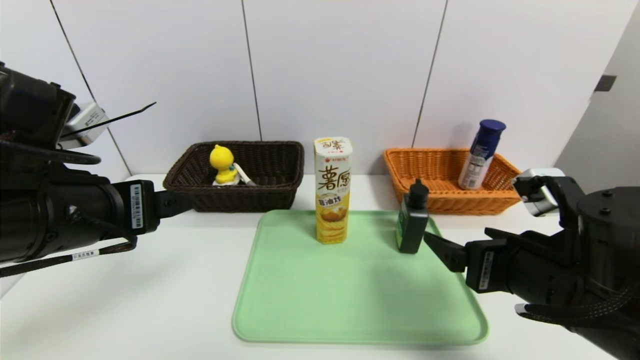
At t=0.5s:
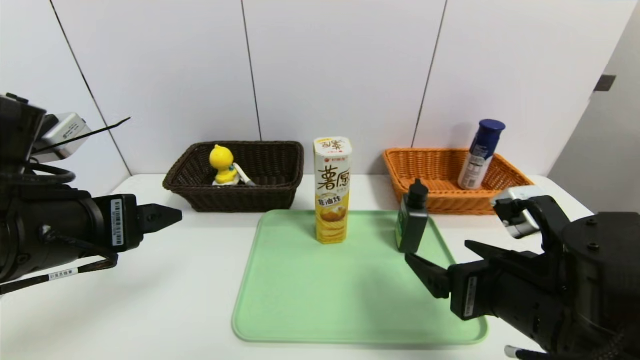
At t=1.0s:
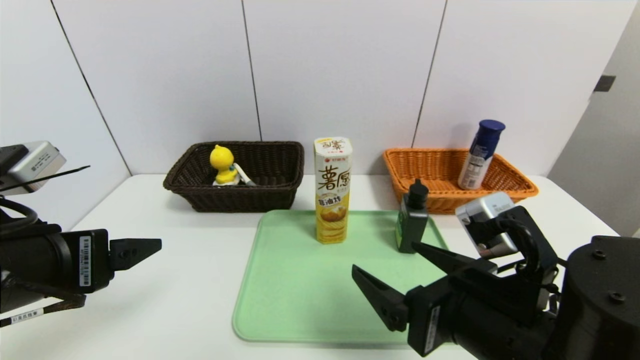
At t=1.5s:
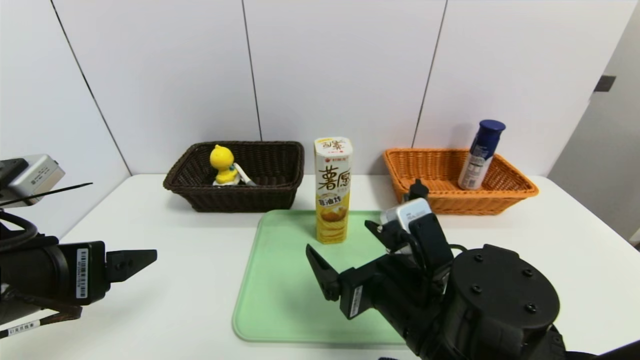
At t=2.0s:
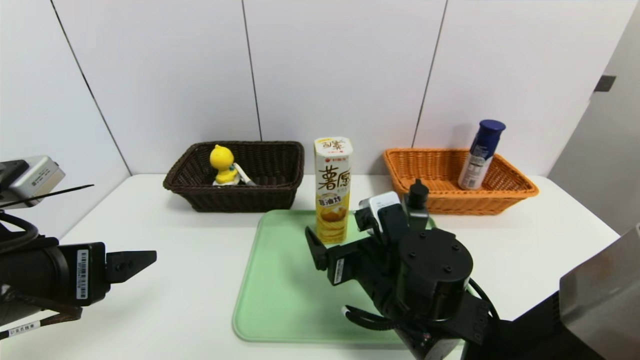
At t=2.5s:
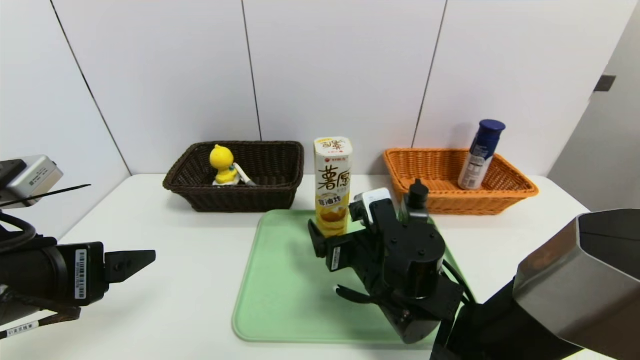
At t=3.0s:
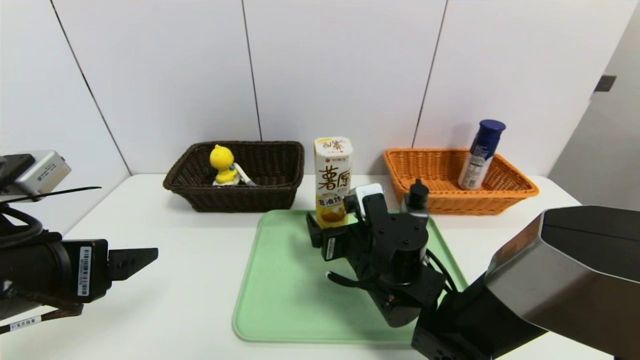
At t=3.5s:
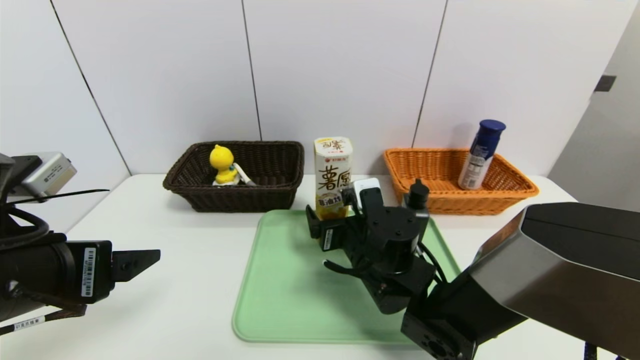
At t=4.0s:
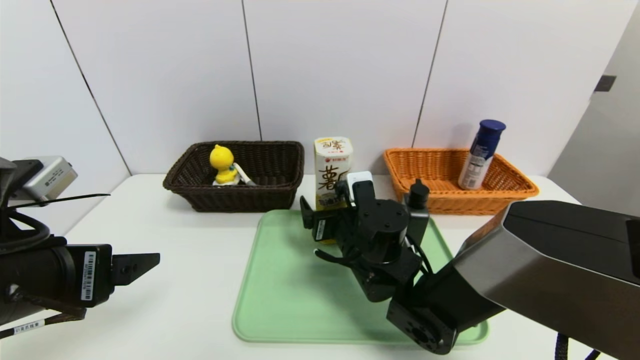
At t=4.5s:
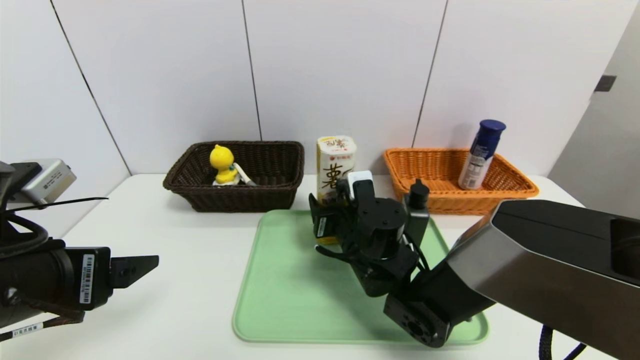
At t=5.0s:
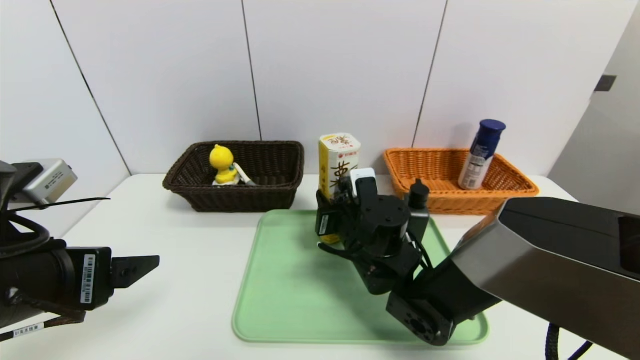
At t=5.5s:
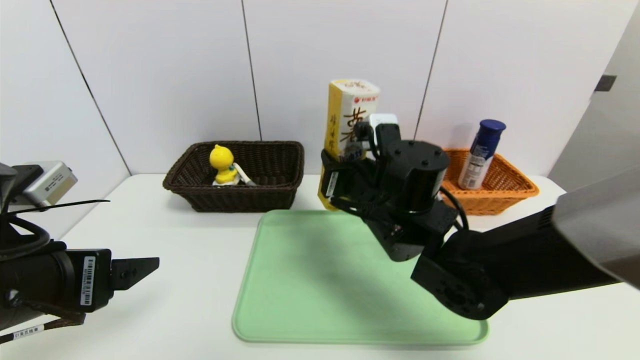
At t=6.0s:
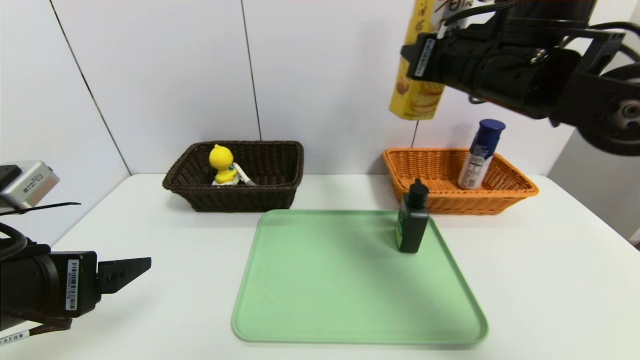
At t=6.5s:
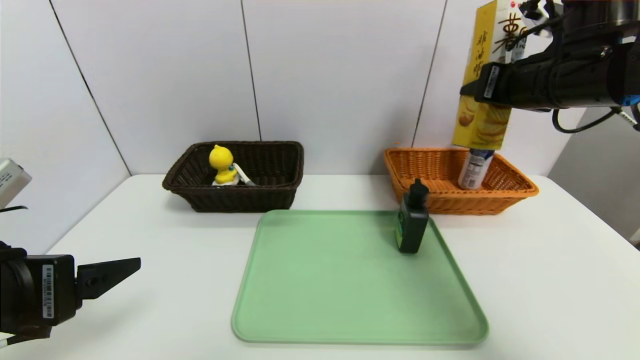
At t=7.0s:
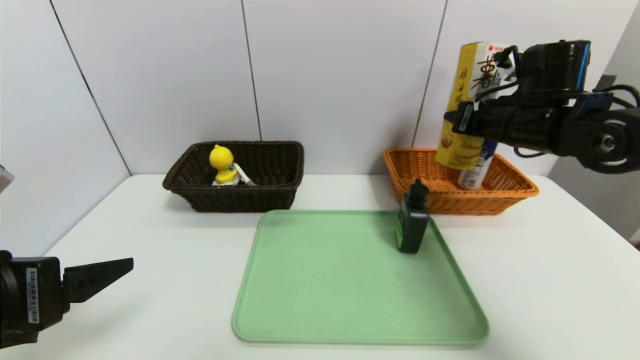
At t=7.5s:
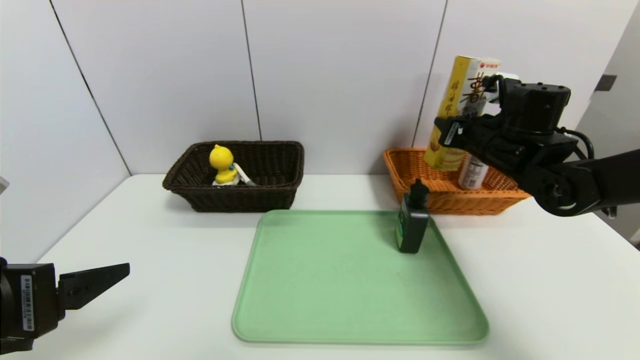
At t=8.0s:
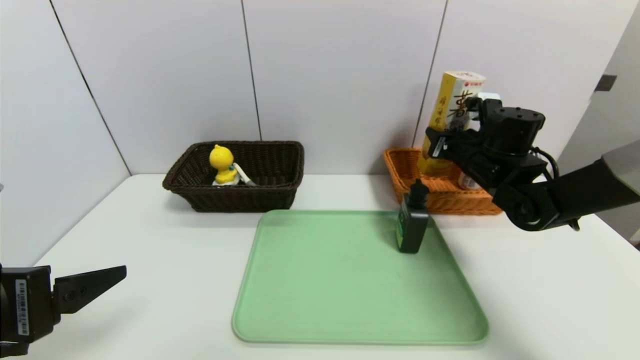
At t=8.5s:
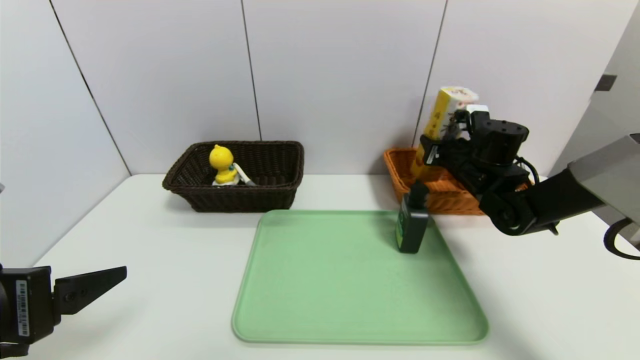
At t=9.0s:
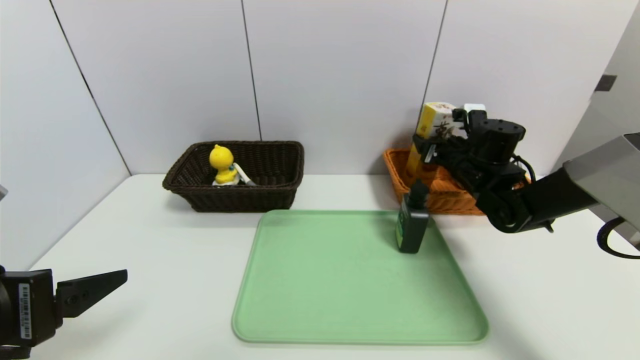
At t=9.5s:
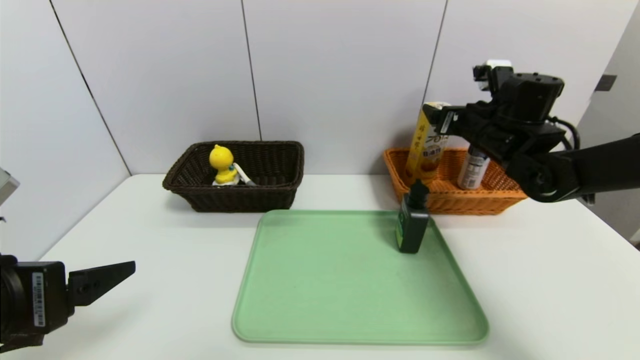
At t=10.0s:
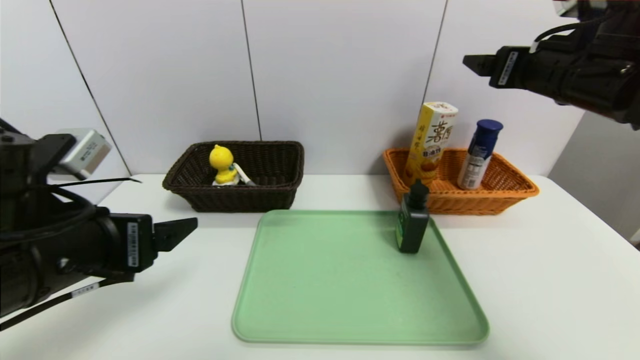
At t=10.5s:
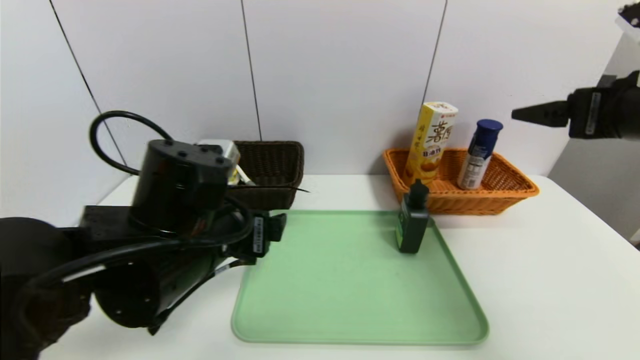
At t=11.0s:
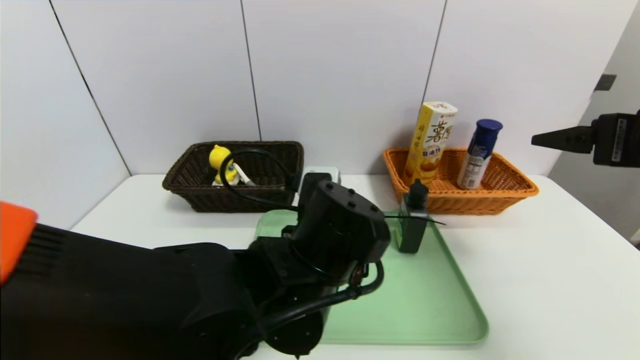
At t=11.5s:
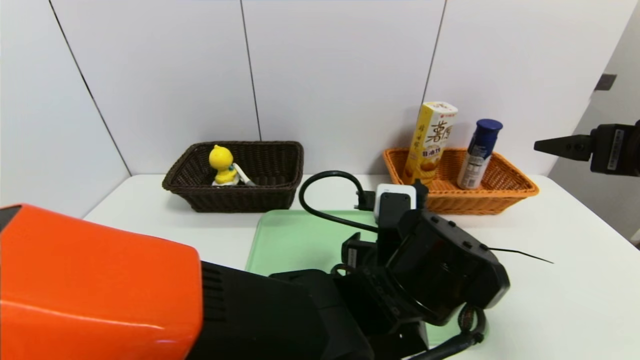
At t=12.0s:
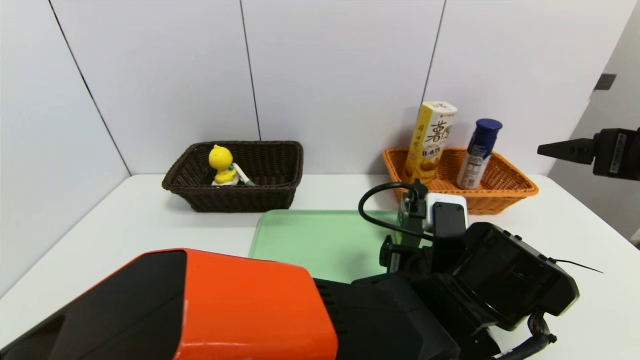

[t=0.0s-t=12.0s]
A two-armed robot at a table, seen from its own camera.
Task of the whole recording: place the food in the right basket with the right gripper, and place the non food items in the left basket with the left gripper.
Step, t=0.0s to t=9.5s: Grasp the potato chips and put it in the right basket.
t=0.0s to t=2.0s: The left gripper shifts by some 5 cm. Meanwhile the right gripper heads to the left, downward and forward, covering approximately 15 cm.
t=2.0s to t=4.0s: The right gripper goes approximately 10 cm forward.
t=4.0s to t=6.0s: The right gripper goes approximately 30 cm upward and to the right, and closes up.
t=6.0s to t=8.0s: The right gripper is displaced downward, forward and to the right by about 20 cm.
t=8.0s to t=10.0s: The right gripper goes about 20 cm upward and backward, and opens up, while the left gripper shifts roughly 5 cm forward.
t=10.0s to t=12.0s: The right gripper travels backward and to the right by roughly 10 cm, while the left gripper moves to the right, roughly 35 cm.

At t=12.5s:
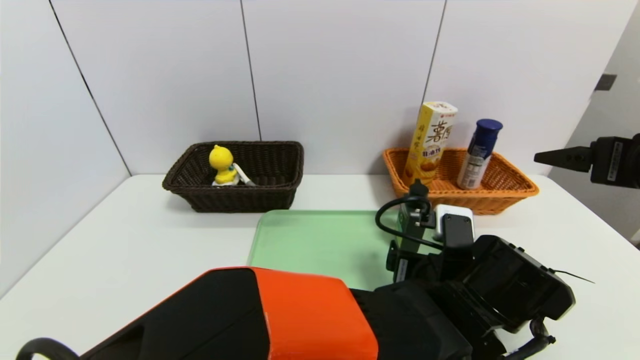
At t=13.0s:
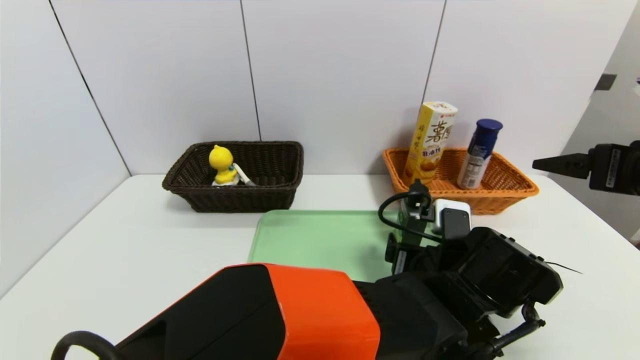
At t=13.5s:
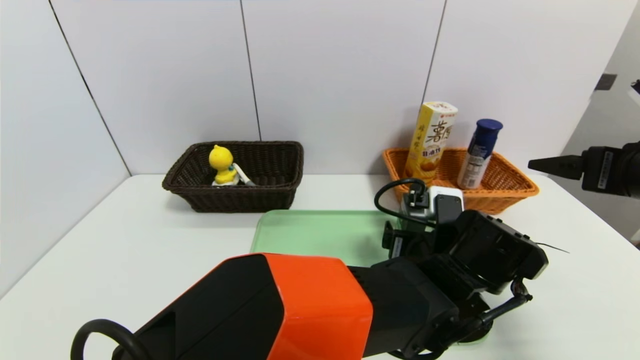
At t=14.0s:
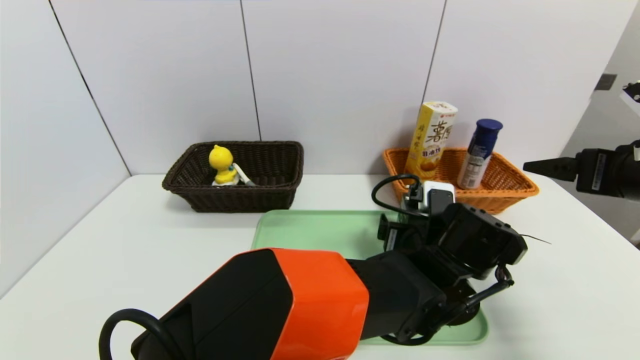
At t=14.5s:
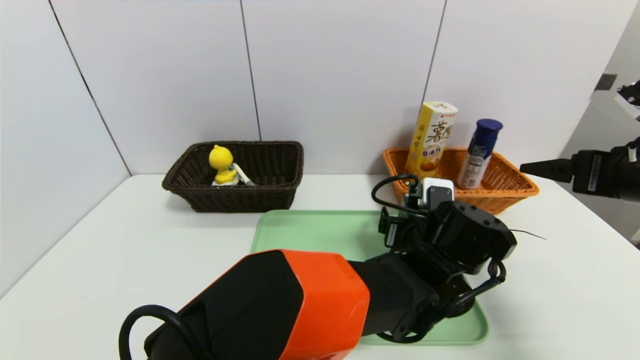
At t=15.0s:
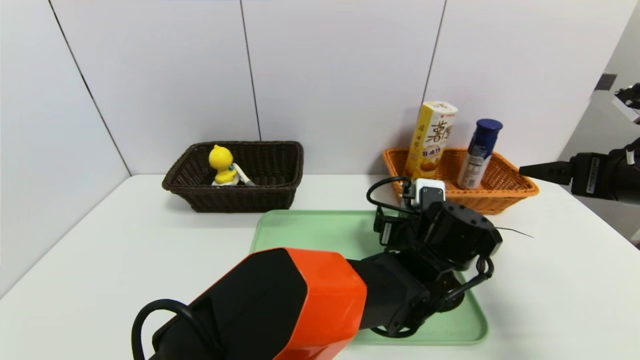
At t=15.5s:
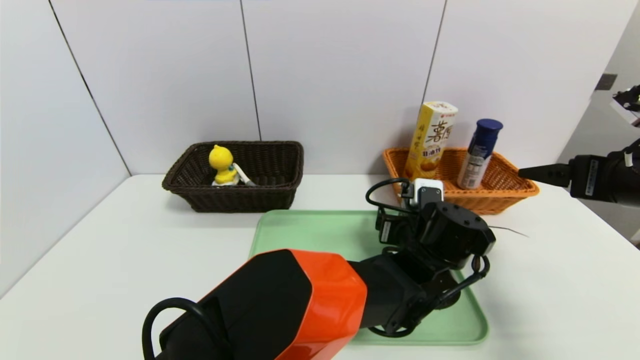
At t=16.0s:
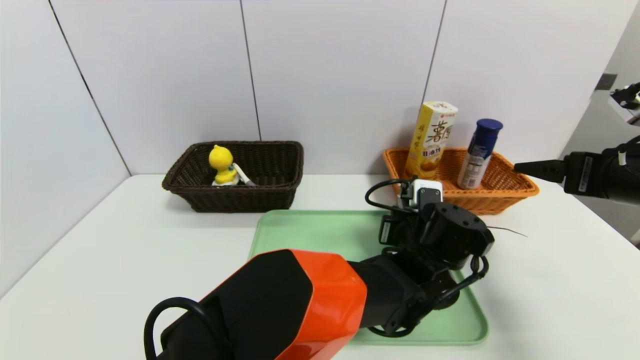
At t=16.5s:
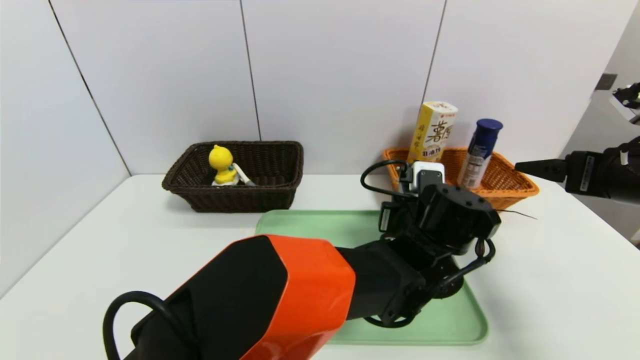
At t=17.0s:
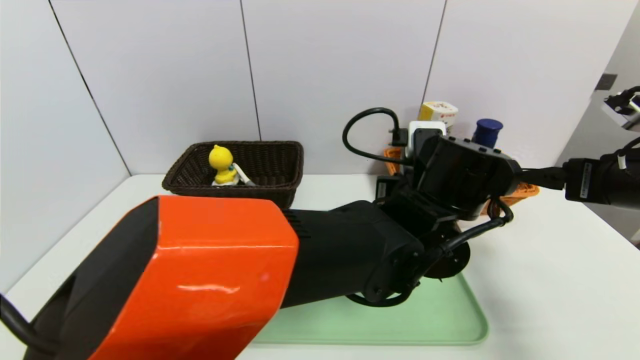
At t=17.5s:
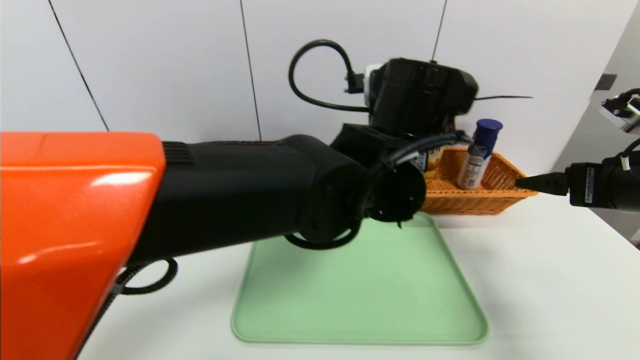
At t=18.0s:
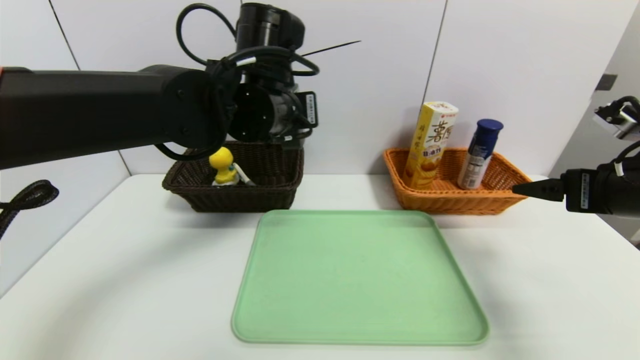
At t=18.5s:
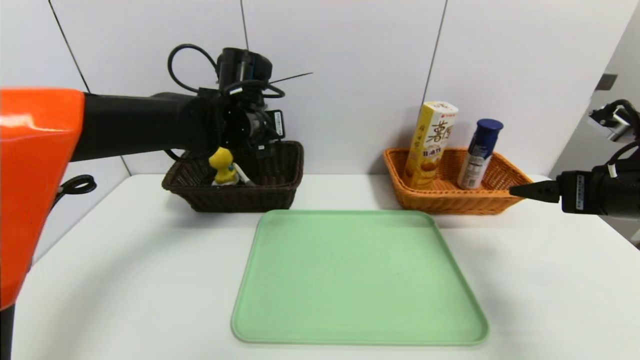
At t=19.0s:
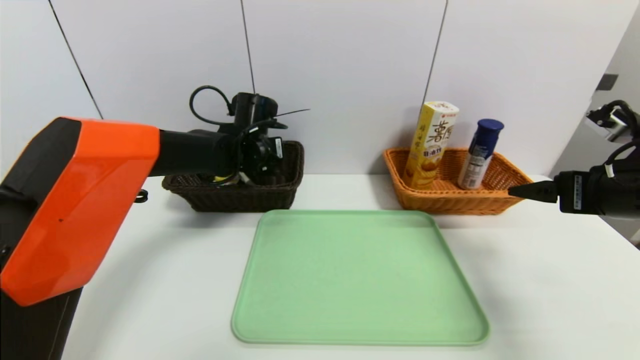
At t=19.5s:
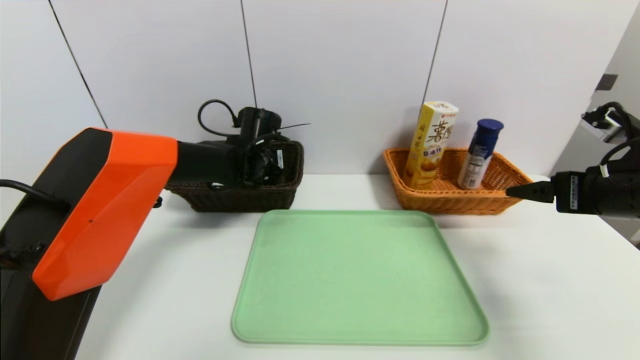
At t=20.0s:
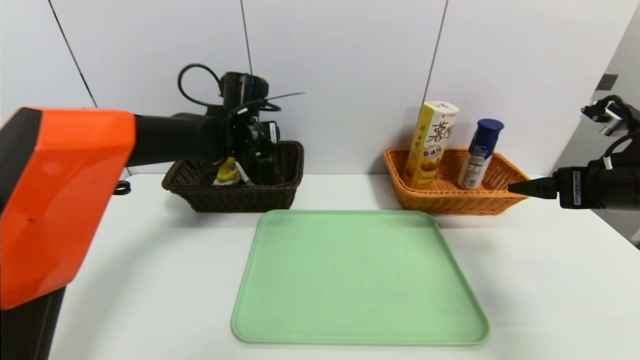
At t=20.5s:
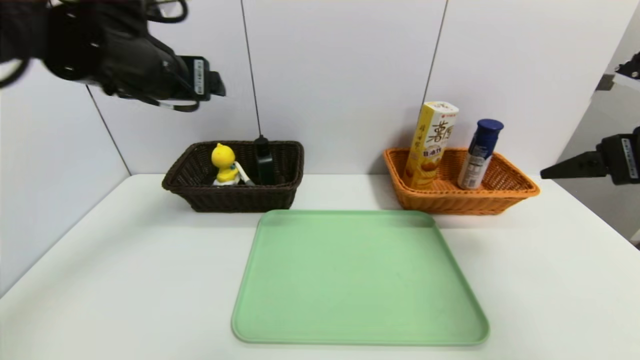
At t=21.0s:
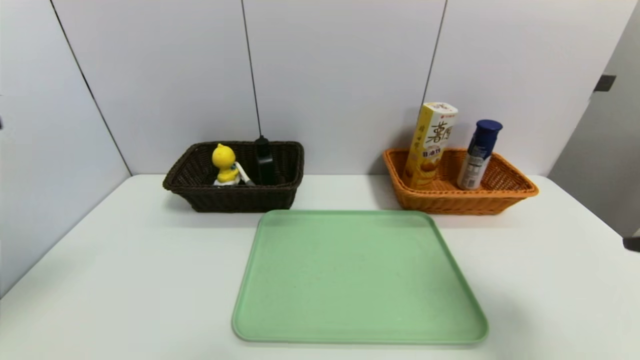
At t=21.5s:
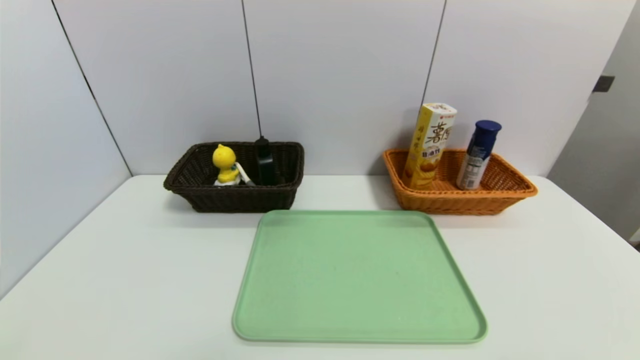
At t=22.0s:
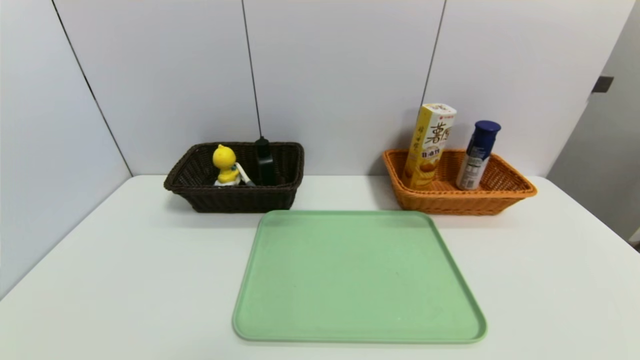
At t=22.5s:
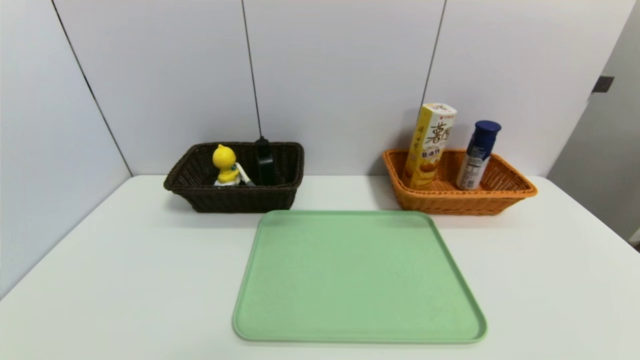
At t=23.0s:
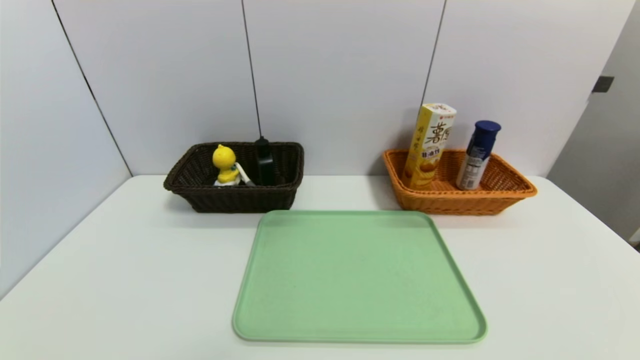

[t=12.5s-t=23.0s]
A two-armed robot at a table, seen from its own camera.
Task of the whole recording: place the food in the right basket with the right gripper, and place the non food items in the left basket with the left gripper.
Step, t=12.5s to t=20.0s: Grasp the hard cleanser and put it in the left basket.
t=12.5s to t=14.5s: The left gripper moves forward, roughly 5 cm.
t=14.5s to t=16.5s: The left gripper closes.
t=16.5s to t=19.0s: The left gripper moves to the left and forward, approximately 30 cm.
t=19.0s to t=21.0s: The right gripper goes some 15 cm backward. Meanwhile the left gripper heads backward, to the left and upward, covering some 40 cm, and opens.
t=21.0s to t=23.0s: The right gripper goes approximately 25 cm downward and backward; the left gripper travels downward by some 30 cm.
